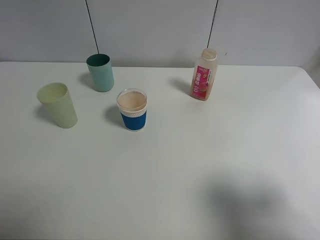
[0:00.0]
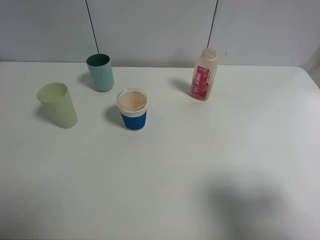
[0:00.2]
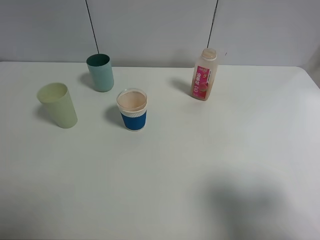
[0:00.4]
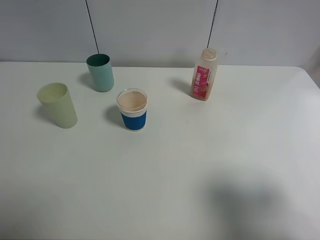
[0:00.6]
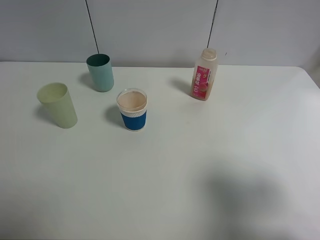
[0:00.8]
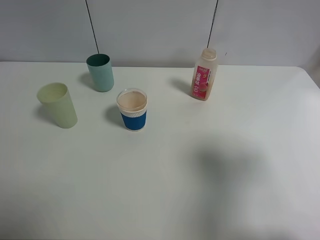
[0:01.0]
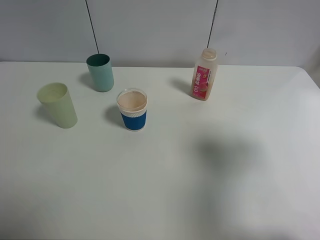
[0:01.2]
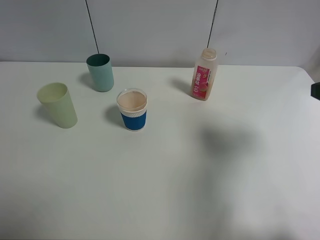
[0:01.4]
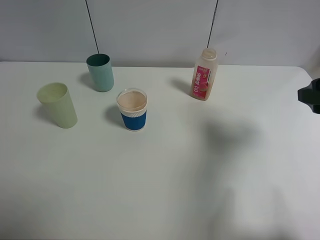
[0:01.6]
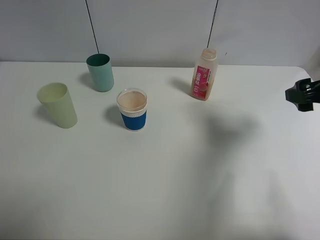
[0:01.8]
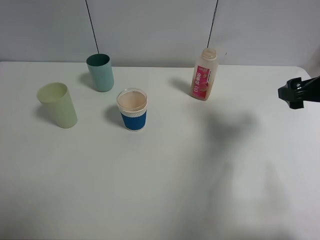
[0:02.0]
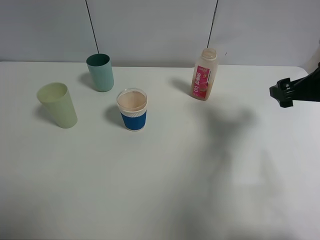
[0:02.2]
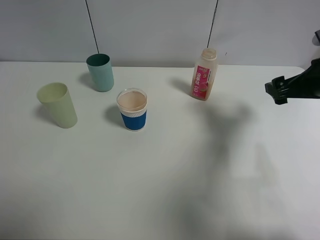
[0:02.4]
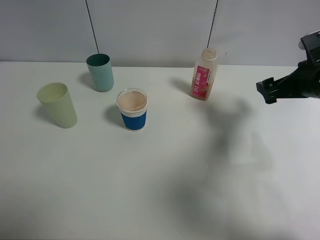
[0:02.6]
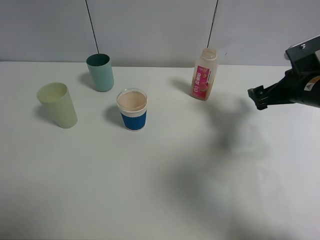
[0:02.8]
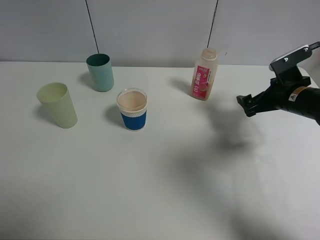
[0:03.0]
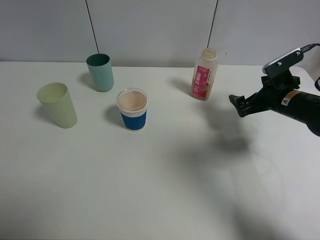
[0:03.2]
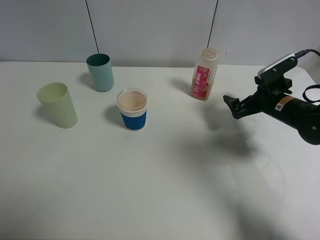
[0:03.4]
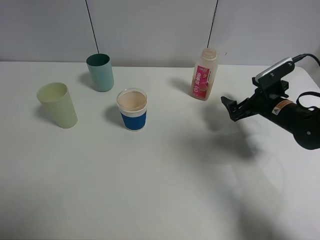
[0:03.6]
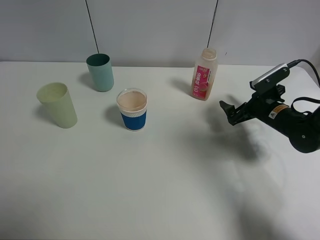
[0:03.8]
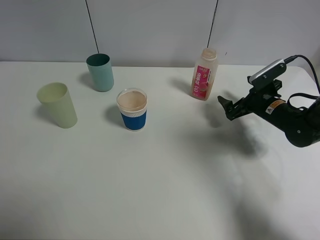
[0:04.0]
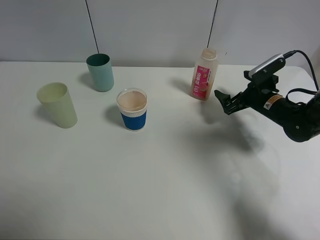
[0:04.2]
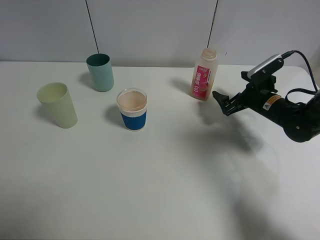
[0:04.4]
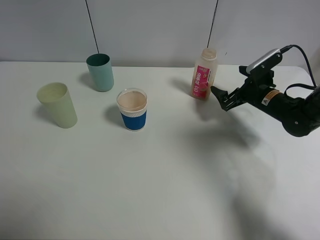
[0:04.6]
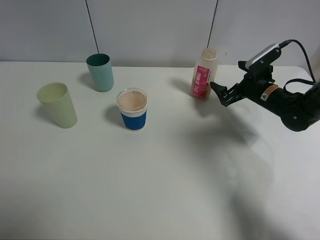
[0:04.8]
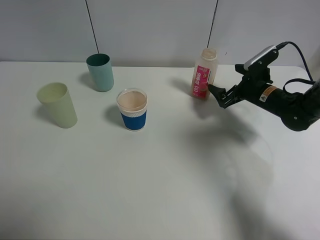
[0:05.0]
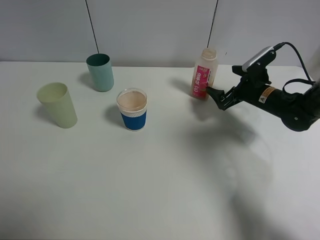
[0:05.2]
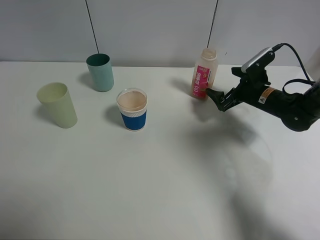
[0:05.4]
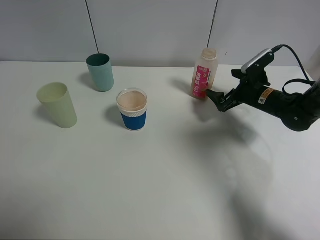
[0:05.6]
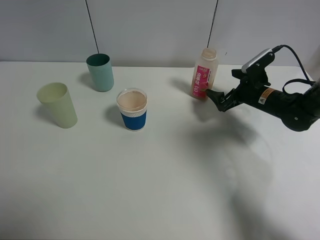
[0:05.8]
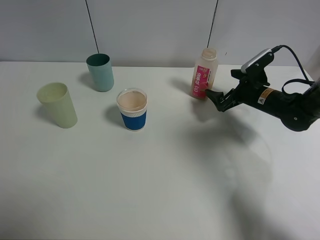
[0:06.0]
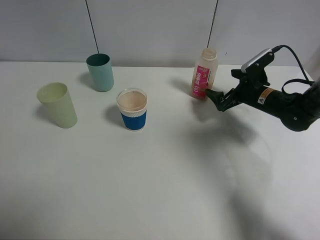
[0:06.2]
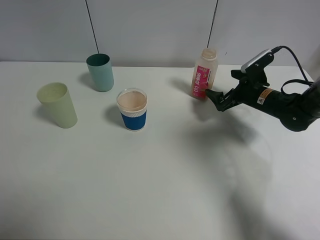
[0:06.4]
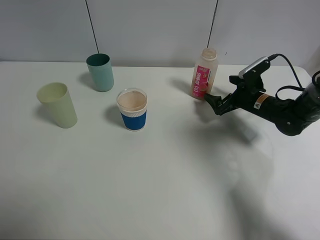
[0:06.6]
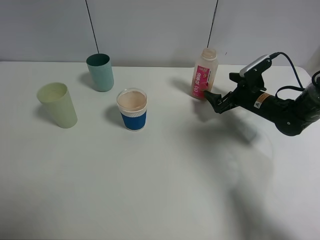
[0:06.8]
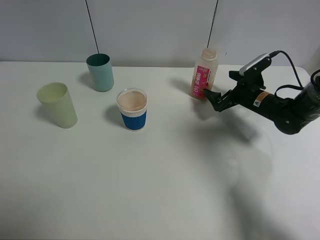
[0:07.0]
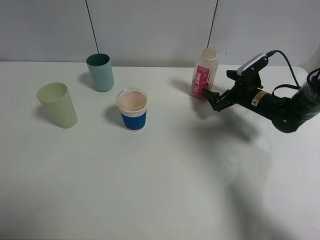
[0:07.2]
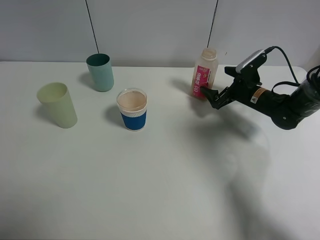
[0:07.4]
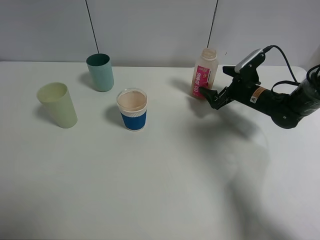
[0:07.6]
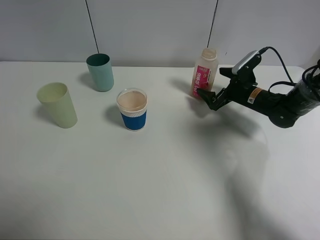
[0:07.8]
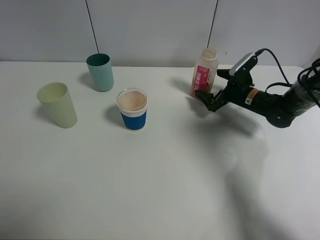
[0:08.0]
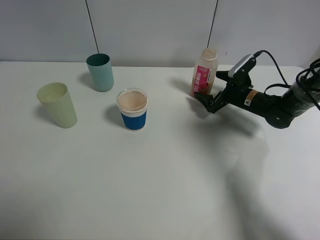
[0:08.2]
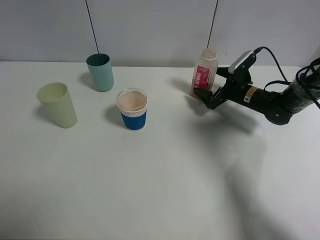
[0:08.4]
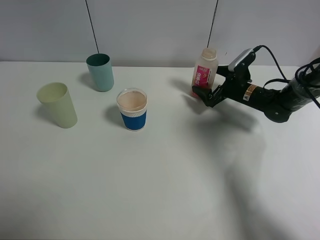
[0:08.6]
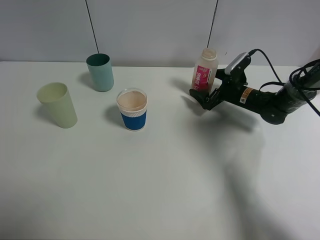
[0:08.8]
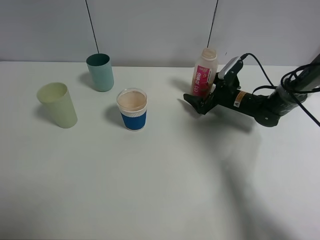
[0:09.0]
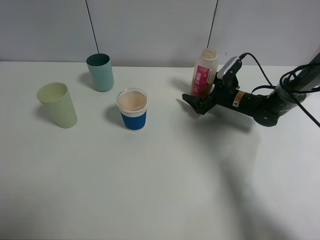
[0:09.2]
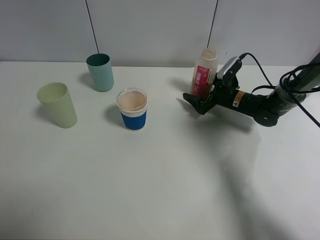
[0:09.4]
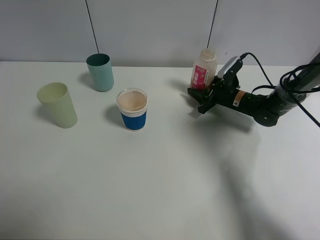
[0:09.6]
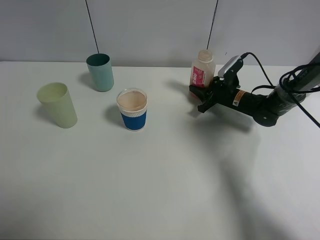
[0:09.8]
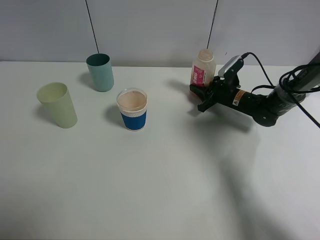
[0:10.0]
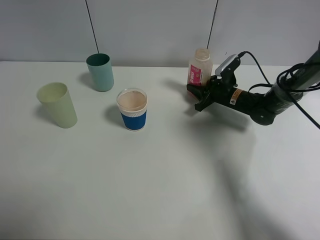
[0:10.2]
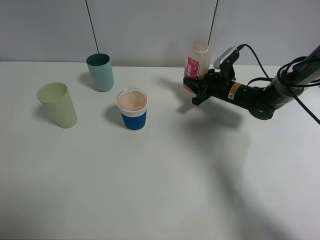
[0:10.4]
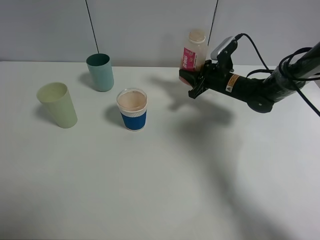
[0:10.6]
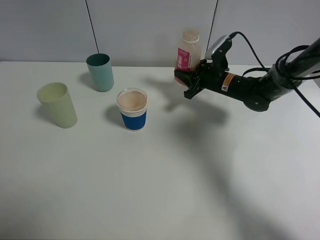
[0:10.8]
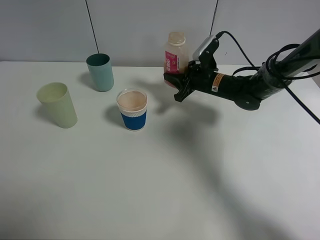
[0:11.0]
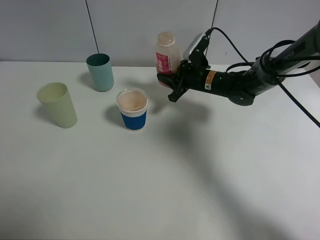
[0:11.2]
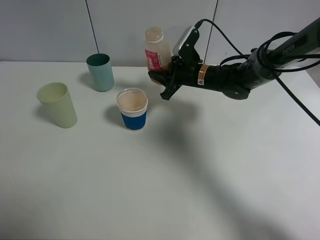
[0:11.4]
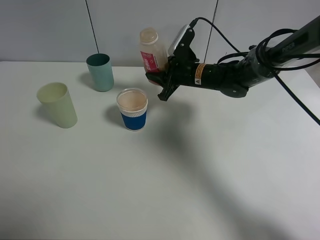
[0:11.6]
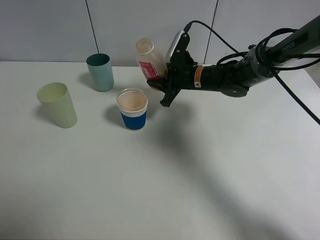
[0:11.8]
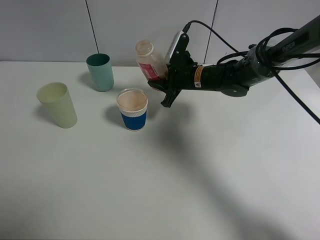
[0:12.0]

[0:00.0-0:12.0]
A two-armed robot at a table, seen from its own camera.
Task of the whole recording: use a clamp to hold the bottle of the drink, pour the beverage into a random cup, then clamp the cup containing the drink and pour the drink into another random cup.
Step, 0:00.0 to 0:10.4: Pick up the drink bottle with right gripper.
0:00.0 to 0:01.6: The right gripper moves forward, some 15 cm.
0:01.6 to 0:03.0: The right gripper moves forward and downward, approximately 20 cm.
0:03.0 to 0:04.4: The right gripper heads downward, covering some 5 cm.
0:04.4 to 0:07.6: The grippers stay close to where they were, moving slightly.
0:07.6 to 0:09.0: The grippers stay close to where they were, moving slightly.
0:09.0 to 0:10.4: The right gripper closes its fingers.
0:10.4 to 0:12.0: The right gripper heads to the left and upward, covering some 10 cm.

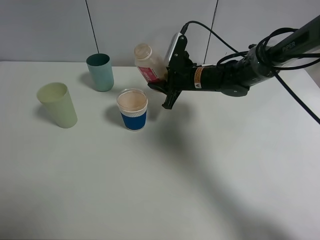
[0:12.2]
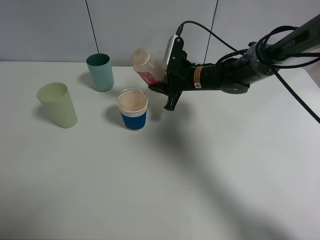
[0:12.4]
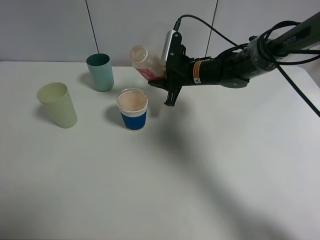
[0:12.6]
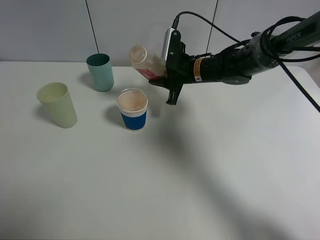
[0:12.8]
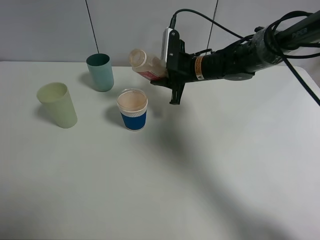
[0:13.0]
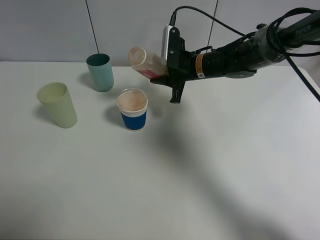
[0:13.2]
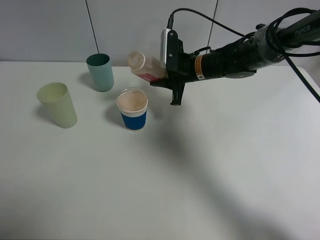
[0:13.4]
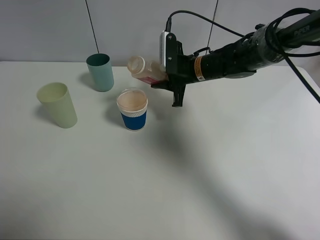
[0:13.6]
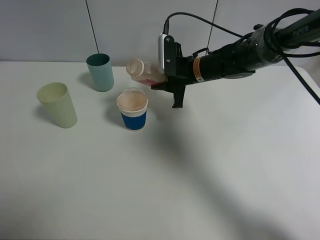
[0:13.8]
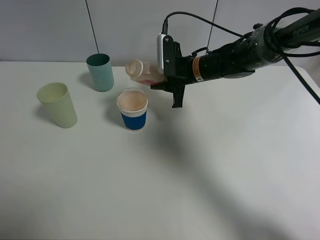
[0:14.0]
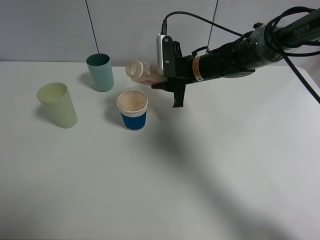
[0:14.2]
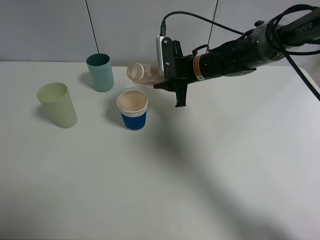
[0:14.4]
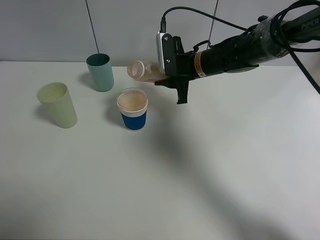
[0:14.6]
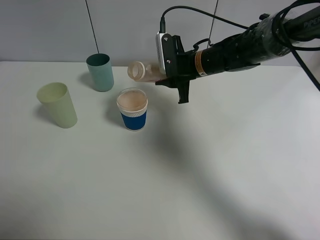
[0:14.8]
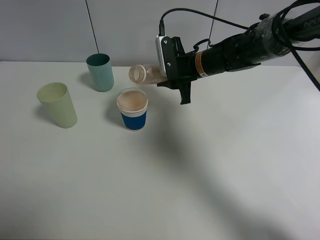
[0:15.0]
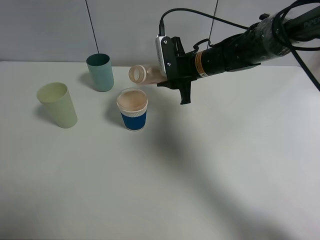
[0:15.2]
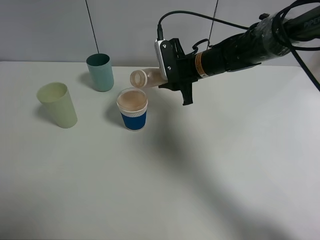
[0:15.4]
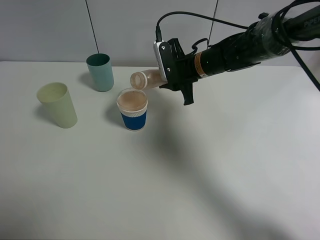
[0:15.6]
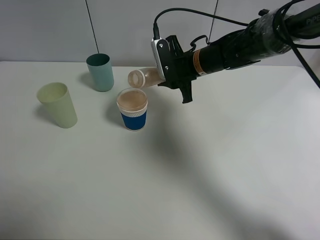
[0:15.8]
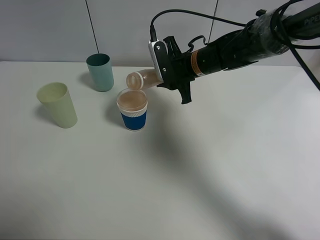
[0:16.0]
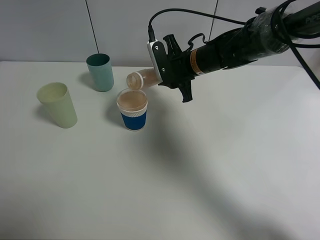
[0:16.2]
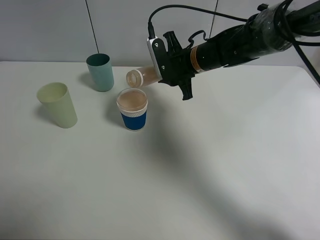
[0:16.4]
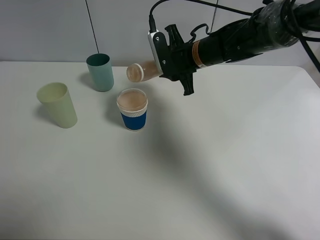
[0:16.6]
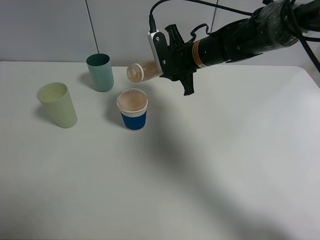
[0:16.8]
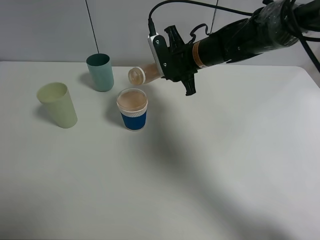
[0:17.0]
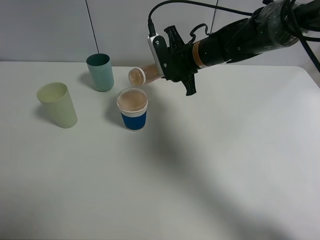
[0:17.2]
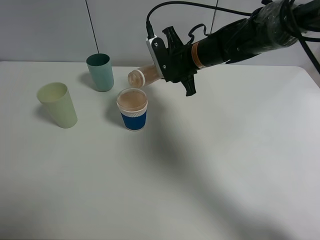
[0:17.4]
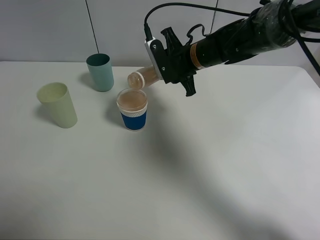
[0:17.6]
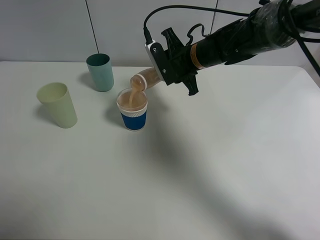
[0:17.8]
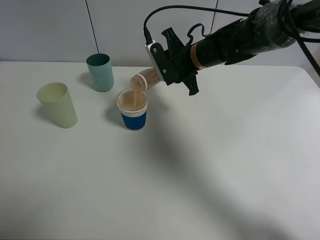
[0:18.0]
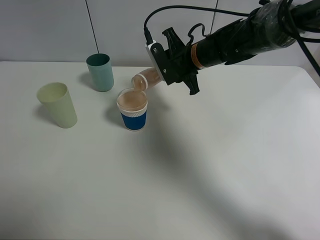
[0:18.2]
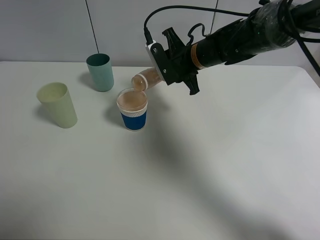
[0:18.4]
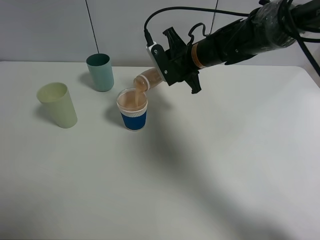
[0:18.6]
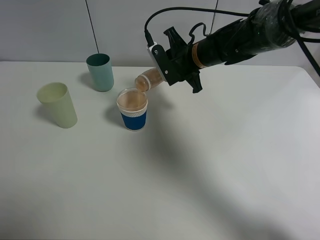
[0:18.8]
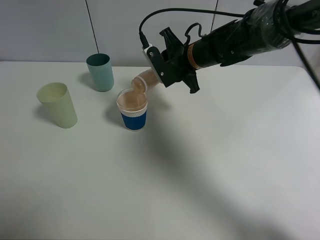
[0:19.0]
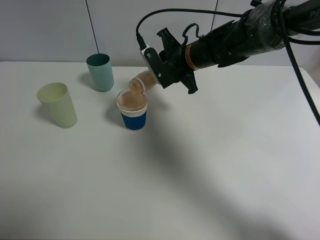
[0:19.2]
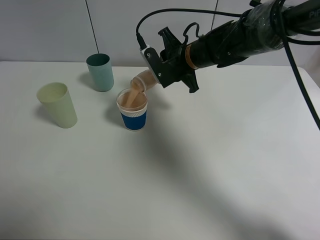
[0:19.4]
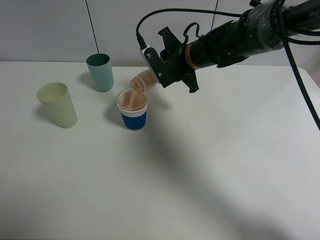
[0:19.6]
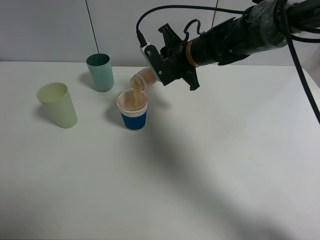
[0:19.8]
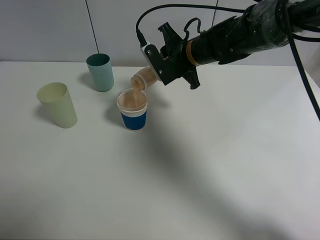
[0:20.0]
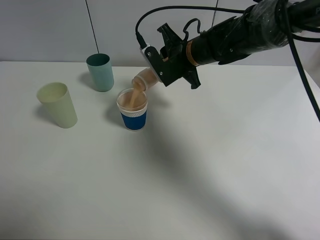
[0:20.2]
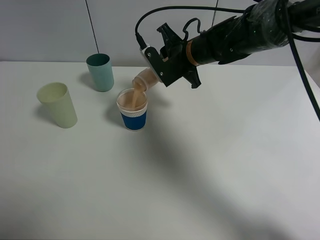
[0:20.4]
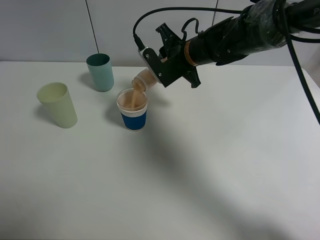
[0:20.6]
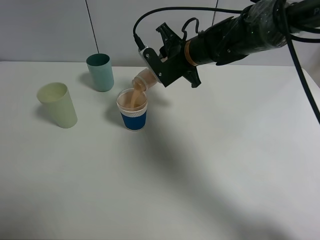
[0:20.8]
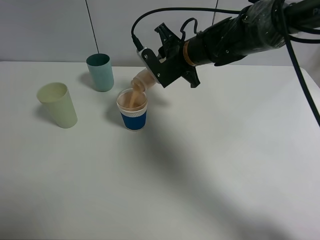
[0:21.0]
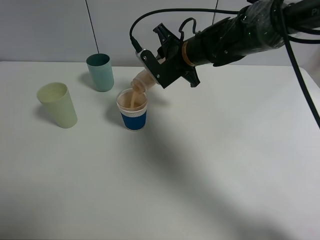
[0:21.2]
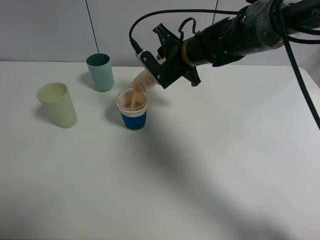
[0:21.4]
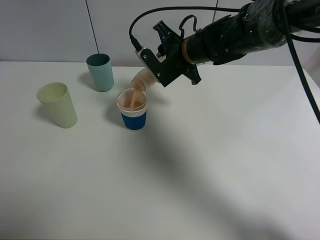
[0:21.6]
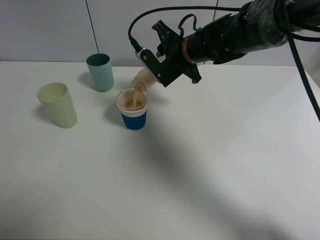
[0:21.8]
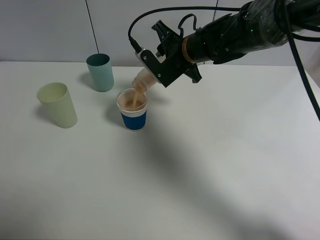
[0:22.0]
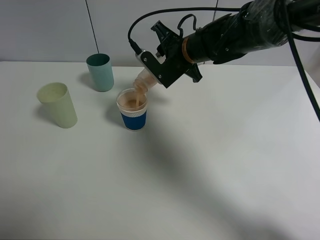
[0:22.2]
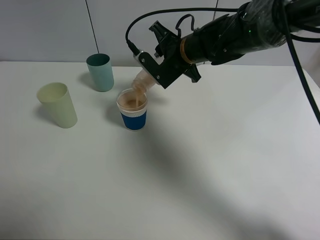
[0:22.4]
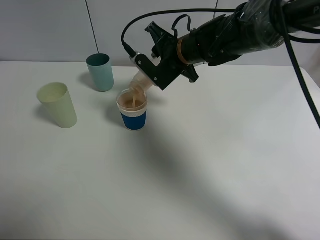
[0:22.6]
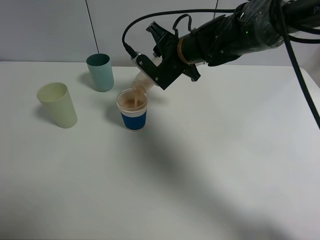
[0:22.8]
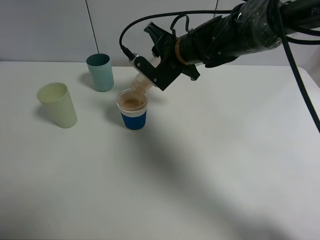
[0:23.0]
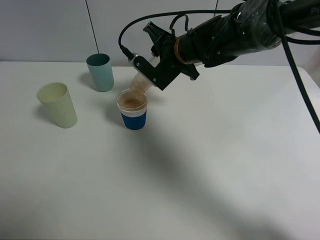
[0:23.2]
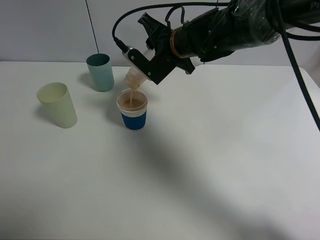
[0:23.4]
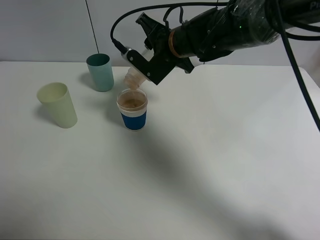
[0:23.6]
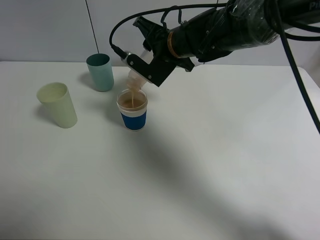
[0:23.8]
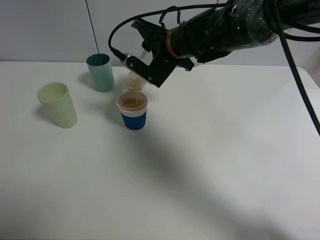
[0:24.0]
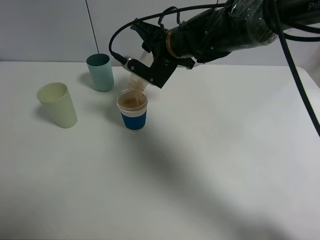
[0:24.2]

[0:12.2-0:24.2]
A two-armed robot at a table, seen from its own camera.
Task of the whole recording: use a clamp to hold the bottle of the drink, pour the beverage into a random cup, then clamp the cup containing the drink and pour the drink into another random cup.
0:13.8 to 0:15.2: The grippers move only a little.
0:15.2 to 0:16.6: There are only small adjustments of the grippers.
0:16.6 to 0:19.8: The grippers stay close to where they were, moving slightly.
0:19.8 to 0:22.6: The grippers make only small movements.
0:22.6 to 0:24.2: The grippers make only small movements.
